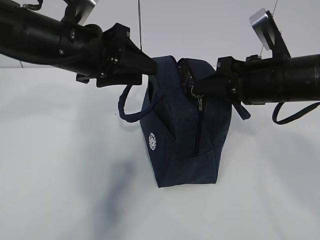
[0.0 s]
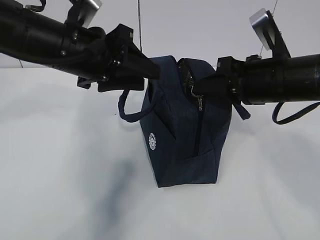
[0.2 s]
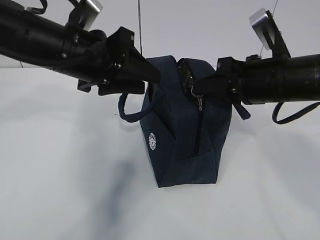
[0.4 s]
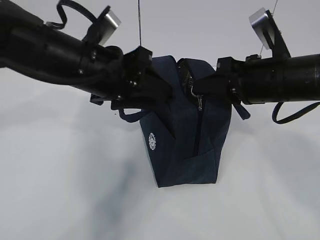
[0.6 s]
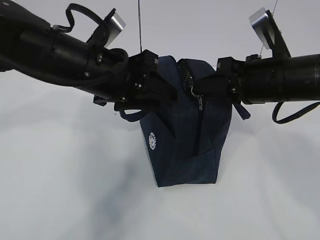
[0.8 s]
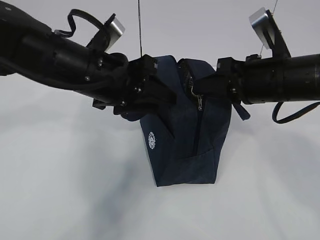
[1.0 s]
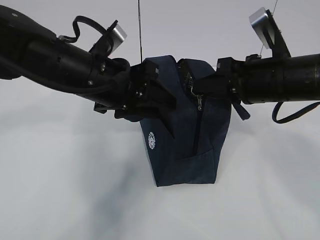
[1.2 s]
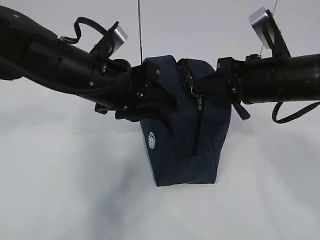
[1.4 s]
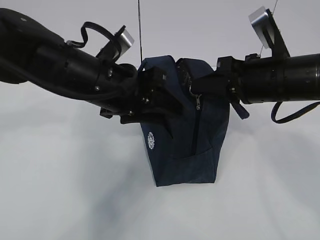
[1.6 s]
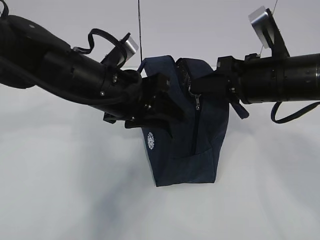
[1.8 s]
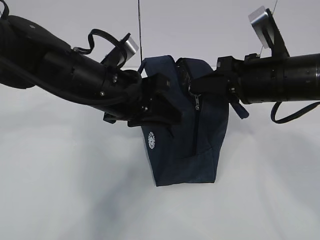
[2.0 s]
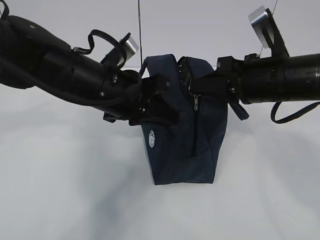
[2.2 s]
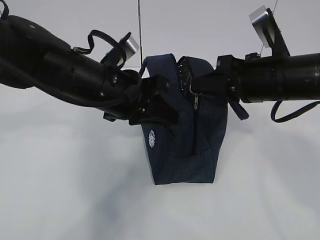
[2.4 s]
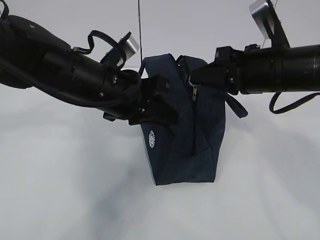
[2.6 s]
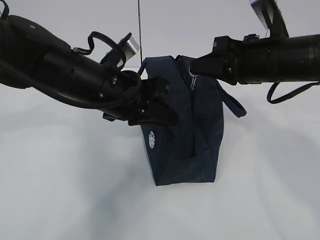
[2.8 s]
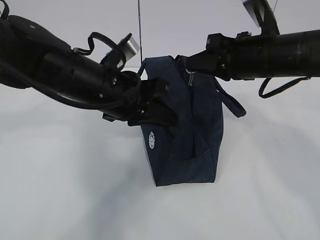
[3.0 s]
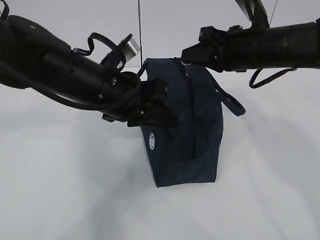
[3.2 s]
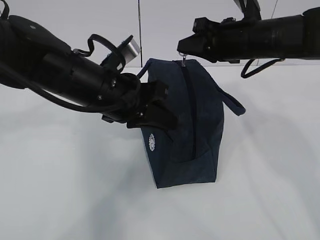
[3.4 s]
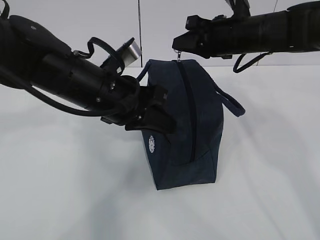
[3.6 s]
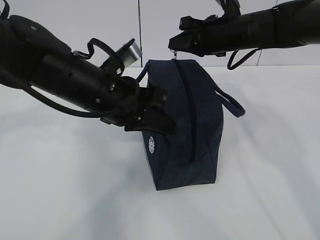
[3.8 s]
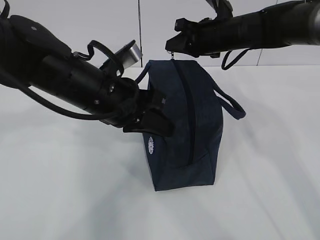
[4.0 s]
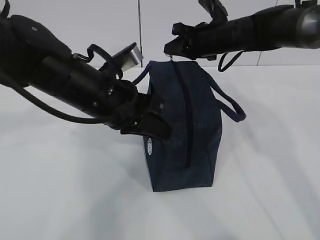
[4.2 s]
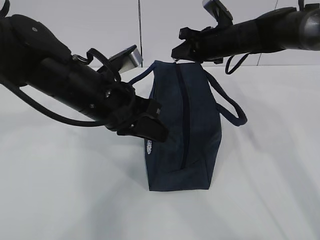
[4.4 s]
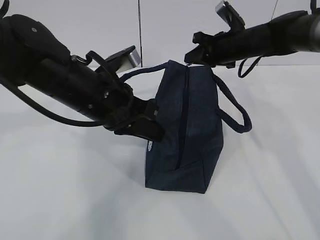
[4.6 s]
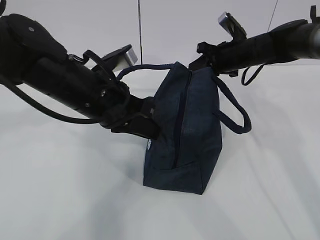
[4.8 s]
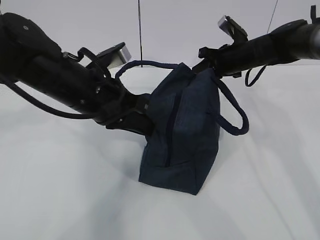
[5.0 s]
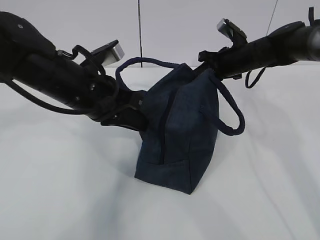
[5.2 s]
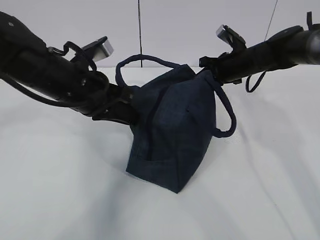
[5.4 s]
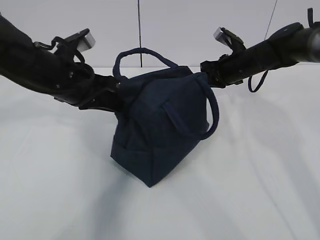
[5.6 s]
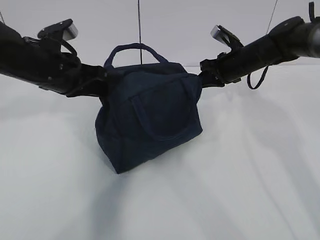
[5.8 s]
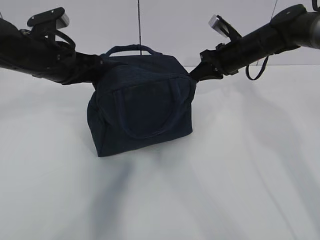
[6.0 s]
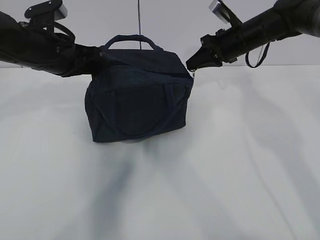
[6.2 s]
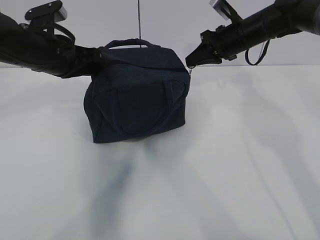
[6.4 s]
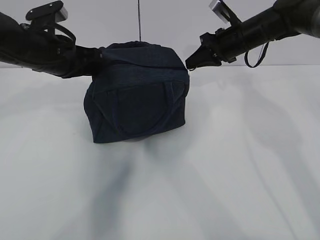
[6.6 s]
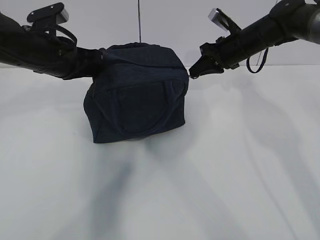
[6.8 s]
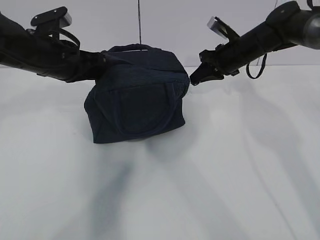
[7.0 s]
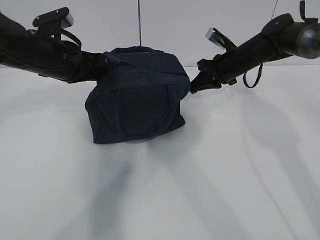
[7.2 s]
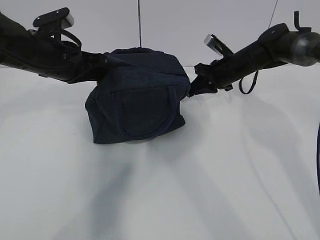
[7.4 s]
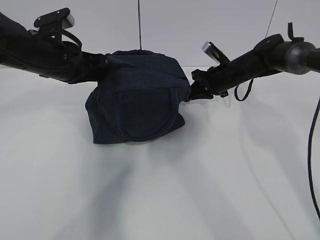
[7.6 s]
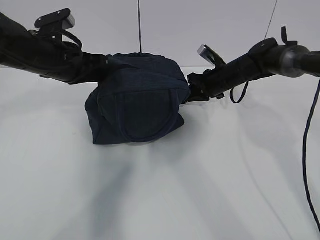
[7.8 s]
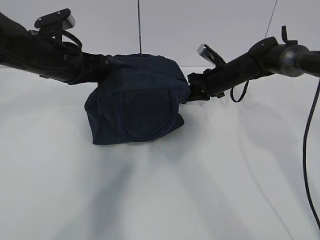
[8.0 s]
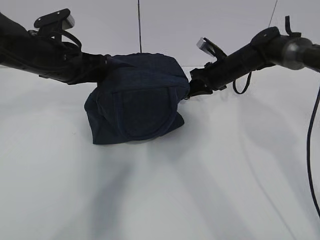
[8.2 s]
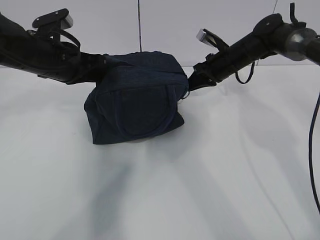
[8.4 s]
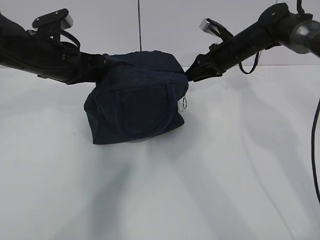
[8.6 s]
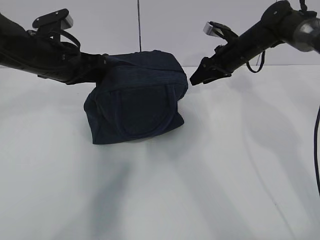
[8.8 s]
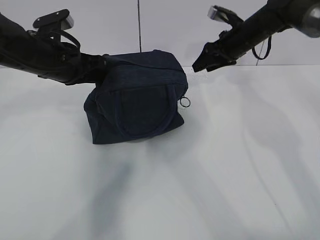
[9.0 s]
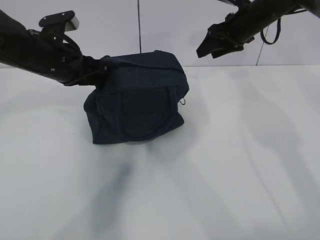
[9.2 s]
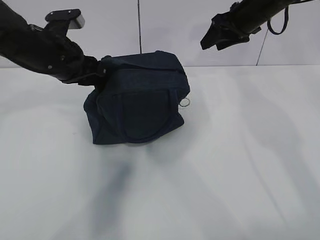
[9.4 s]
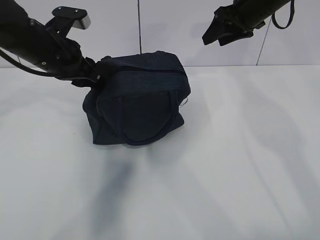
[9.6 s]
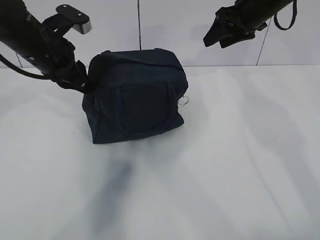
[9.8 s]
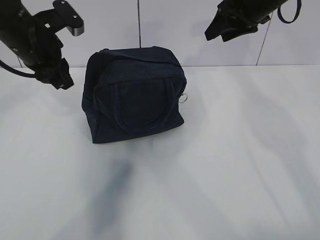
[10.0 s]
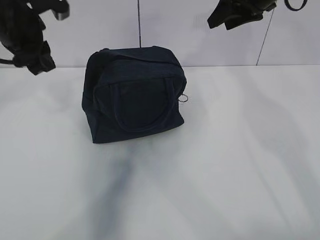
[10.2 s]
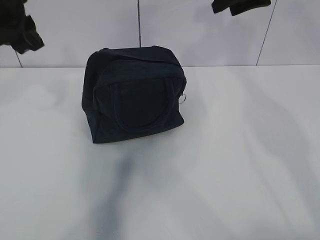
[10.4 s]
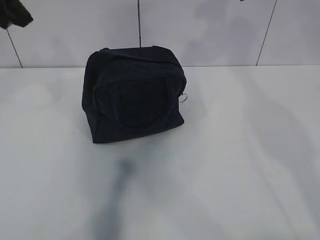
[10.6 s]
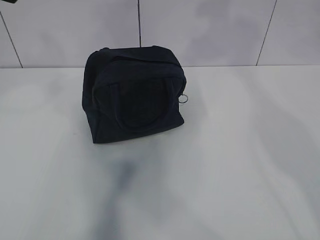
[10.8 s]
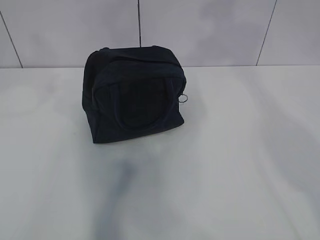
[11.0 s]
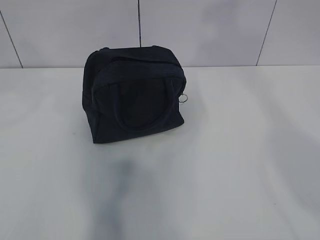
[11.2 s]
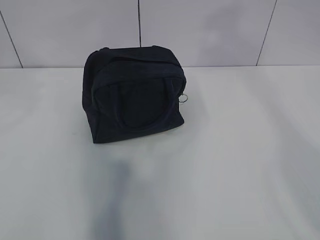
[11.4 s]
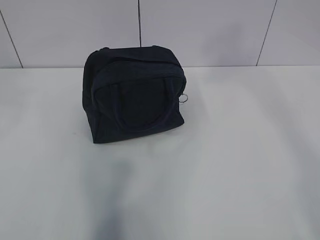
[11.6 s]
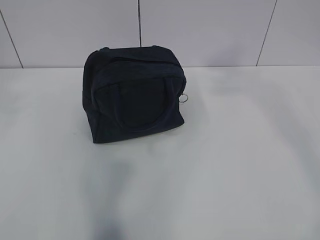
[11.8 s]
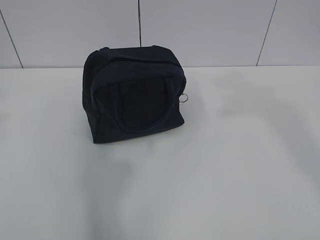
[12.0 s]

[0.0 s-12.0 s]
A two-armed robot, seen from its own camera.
0.0 to 1.6 s: The left gripper changes place by about 5 cm.
1.6 to 3.0 s: The left gripper closes its fingers.
3.0 to 4.4 s: The right gripper travels forward by about 15 cm.
4.4 to 6.0 s: The left gripper shifts approximately 15 cm to the left and forward.
6.0 to 7.6 s: The right gripper goes approximately 5 cm downward.
7.6 to 9.0 s: The right gripper shifts roughly 10 cm upward, and opens up.
9.0 to 10.4 s: The left gripper shifts approximately 10 cm upward, and opens its fingers, while the right gripper heads upward and backward, covering roughly 15 cm.
10.4 to 12.0 s: The left gripper goes roughly 30 cm backward and upward. Meanwhile the right gripper heads backward, covering about 35 cm.

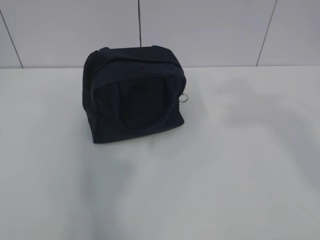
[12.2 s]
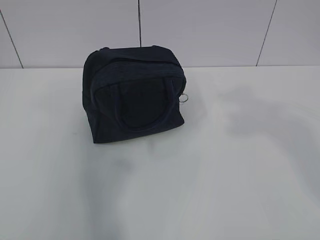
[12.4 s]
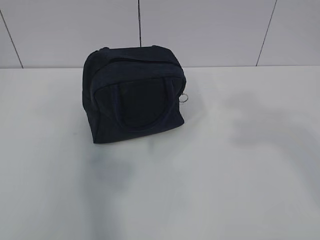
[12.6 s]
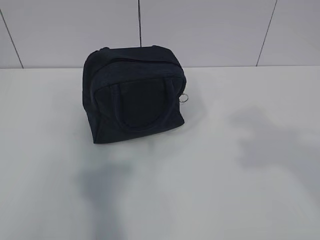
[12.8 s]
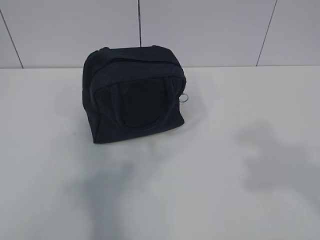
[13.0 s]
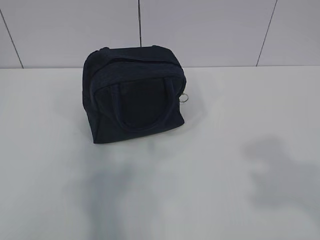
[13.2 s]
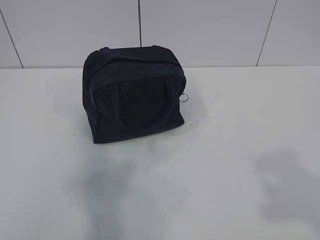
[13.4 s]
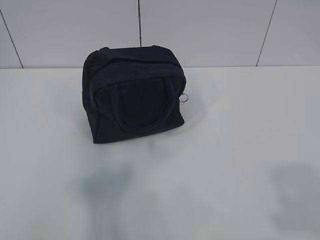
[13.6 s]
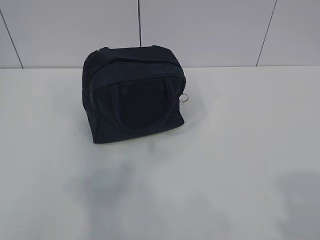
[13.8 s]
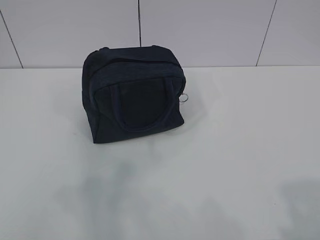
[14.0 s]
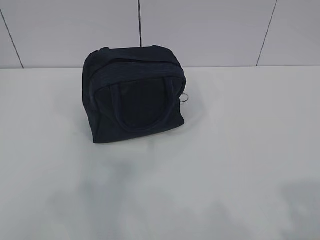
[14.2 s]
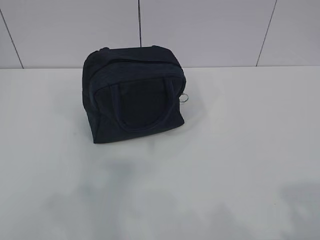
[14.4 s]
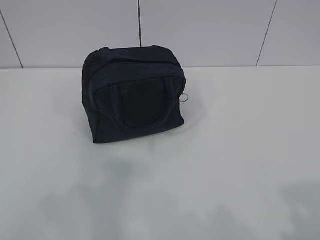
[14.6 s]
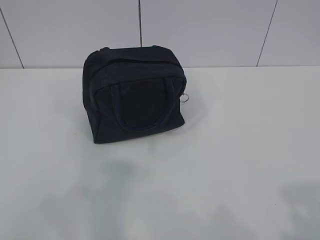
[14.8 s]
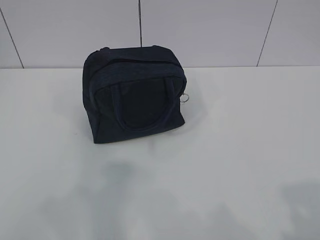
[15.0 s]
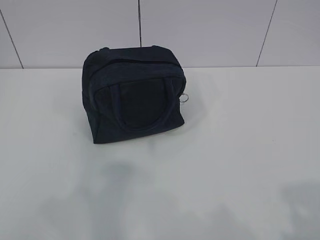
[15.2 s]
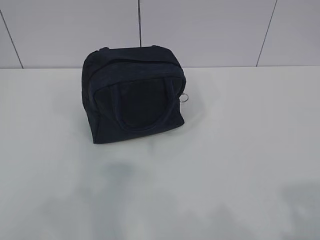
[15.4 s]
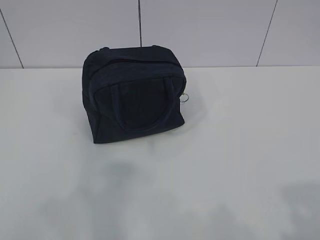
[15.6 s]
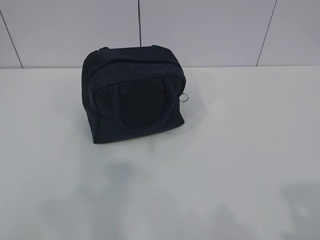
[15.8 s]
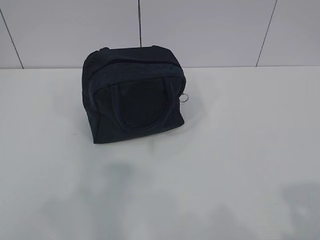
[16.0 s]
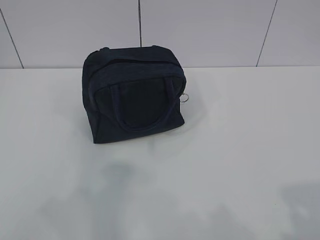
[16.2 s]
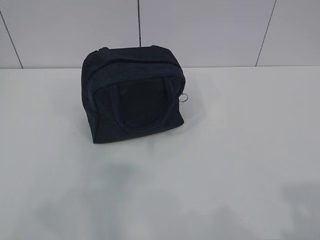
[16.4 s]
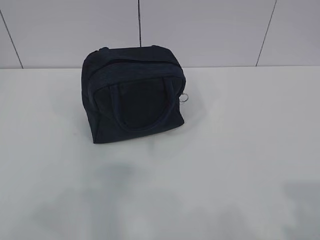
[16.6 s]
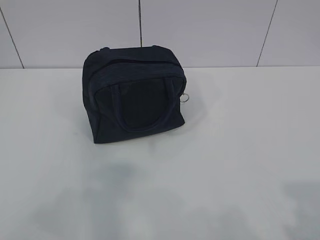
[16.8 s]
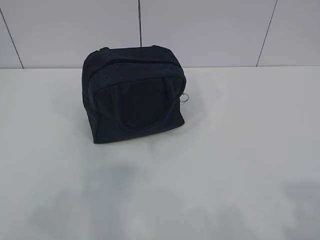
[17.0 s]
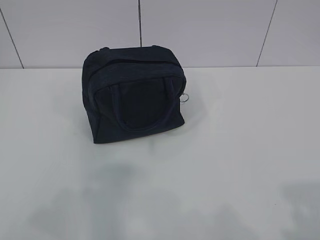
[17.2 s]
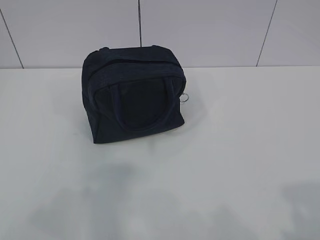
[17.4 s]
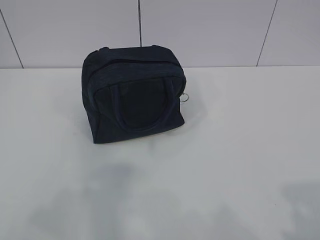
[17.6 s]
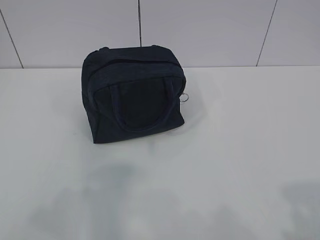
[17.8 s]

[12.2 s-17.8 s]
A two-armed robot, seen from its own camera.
15.0 to 16.4 s: Neither gripper changes place.

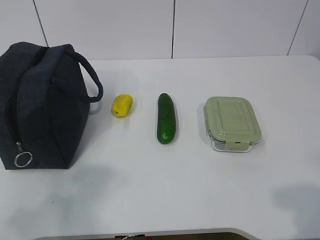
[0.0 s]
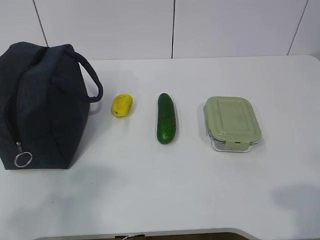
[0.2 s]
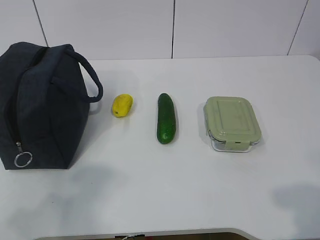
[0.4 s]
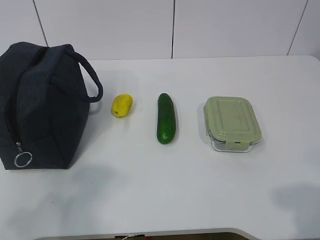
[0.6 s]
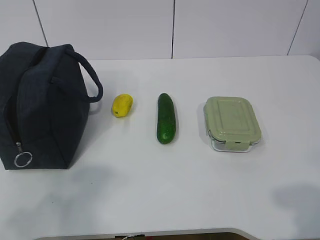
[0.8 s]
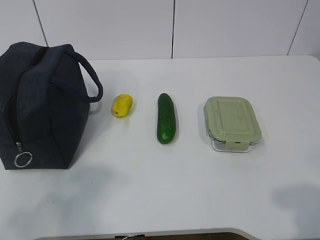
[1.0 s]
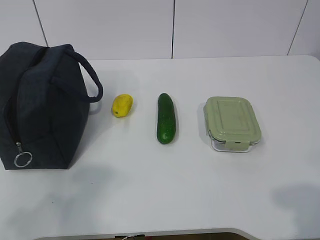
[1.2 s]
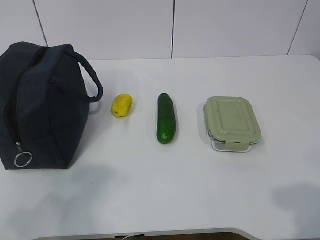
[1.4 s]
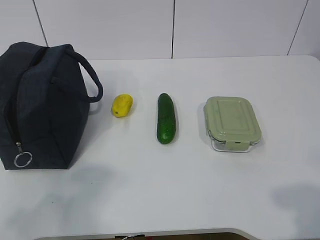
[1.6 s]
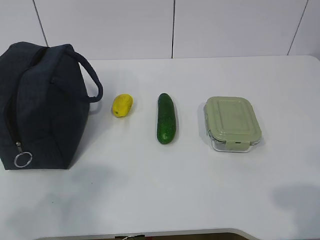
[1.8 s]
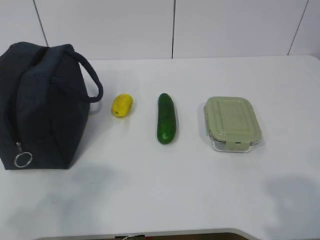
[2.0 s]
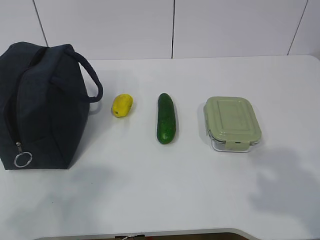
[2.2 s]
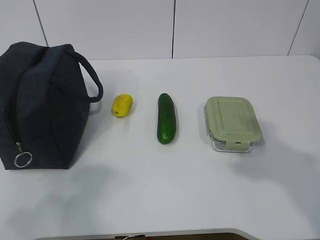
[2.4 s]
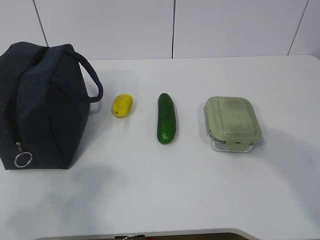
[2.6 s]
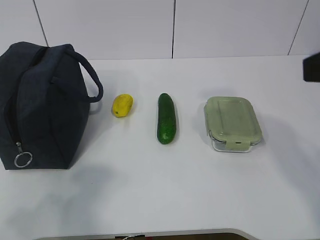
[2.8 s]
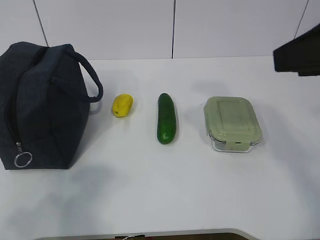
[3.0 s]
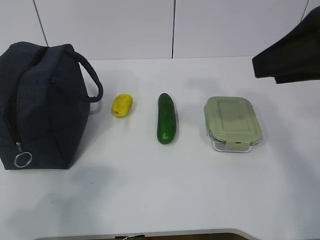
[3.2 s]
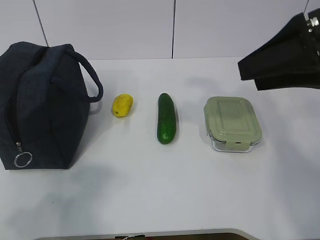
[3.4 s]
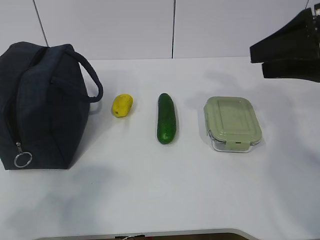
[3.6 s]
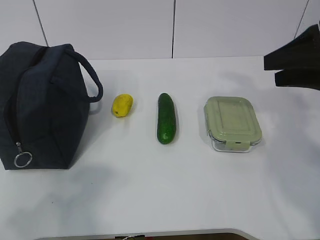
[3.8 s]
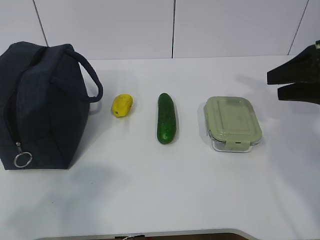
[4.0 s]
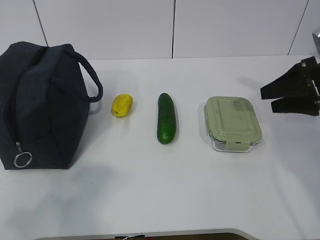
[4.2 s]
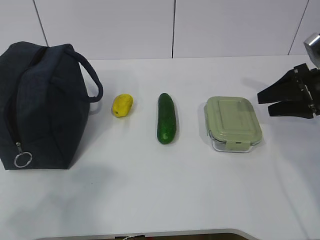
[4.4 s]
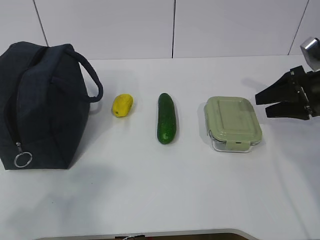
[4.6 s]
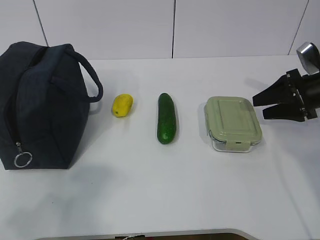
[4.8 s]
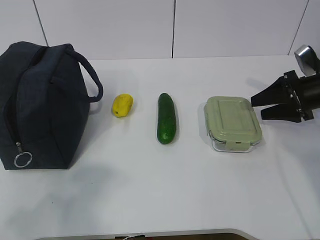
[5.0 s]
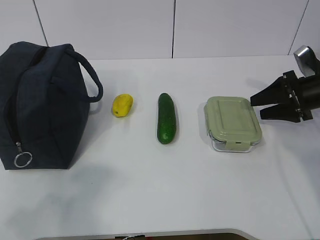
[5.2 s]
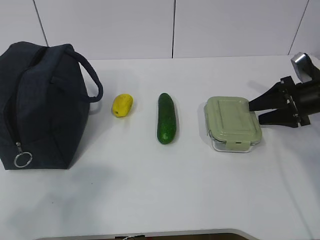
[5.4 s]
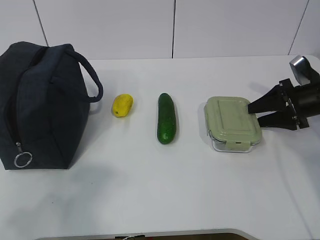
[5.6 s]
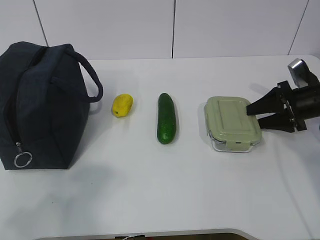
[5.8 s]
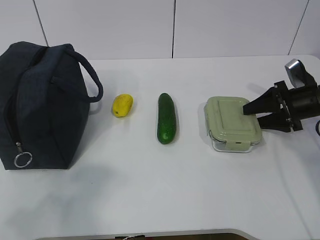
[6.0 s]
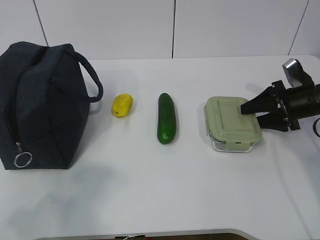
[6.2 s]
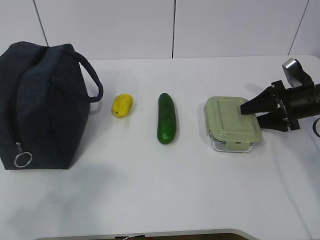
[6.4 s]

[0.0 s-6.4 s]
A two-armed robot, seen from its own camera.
Step, 0.0 to 6.0 s: Grab the lunch box with your right hand.
1.6 to 3.2 s: The right gripper heads forward and upward, covering approximately 25 cm, and opens its fingers.
3.2 to 4.8 s: The right gripper moves downward, forward and to the right, about 25 cm.
4.8 to 6.4 s: There are only small adjustments of the grippers.
